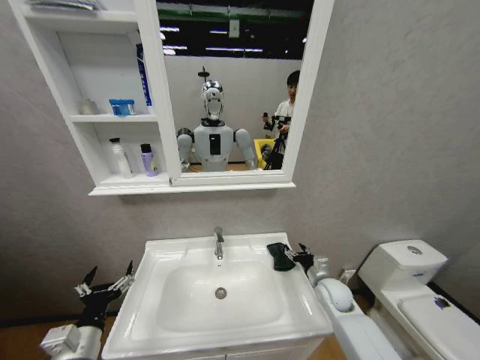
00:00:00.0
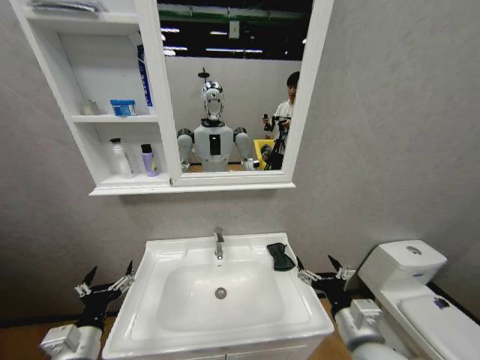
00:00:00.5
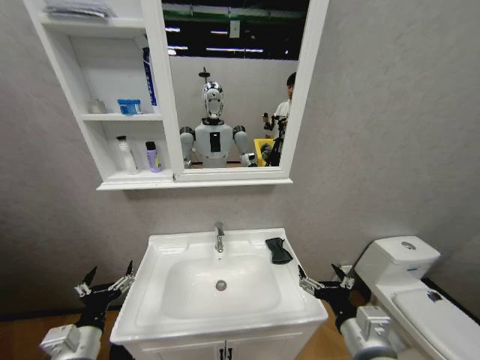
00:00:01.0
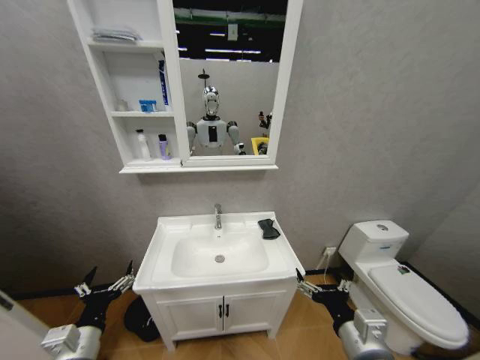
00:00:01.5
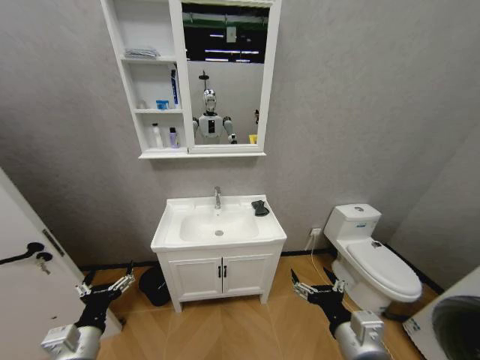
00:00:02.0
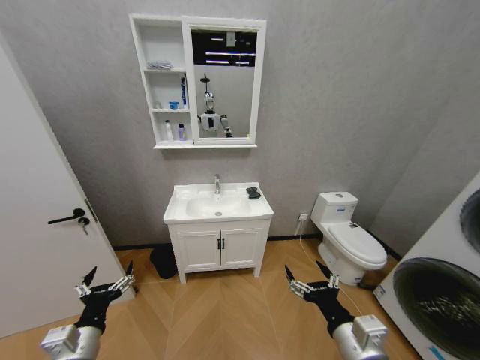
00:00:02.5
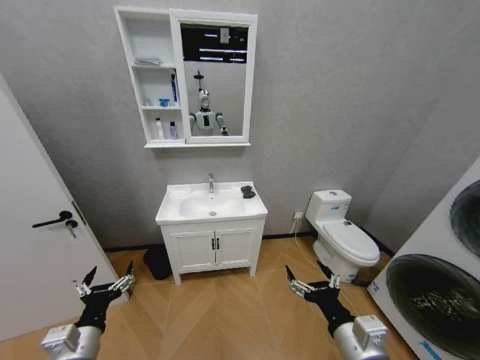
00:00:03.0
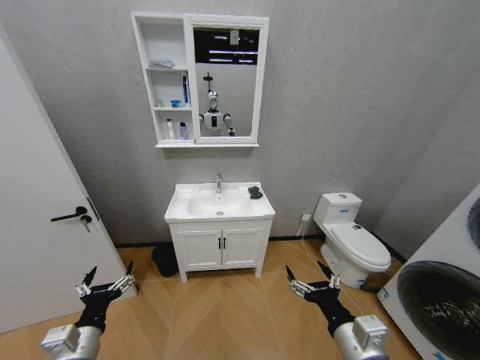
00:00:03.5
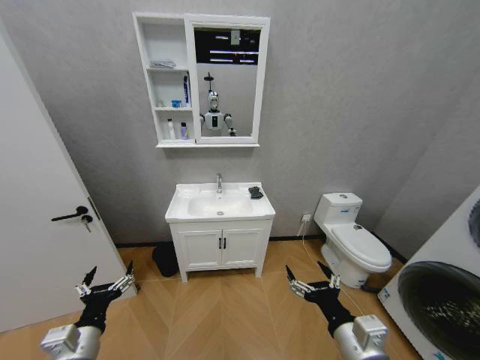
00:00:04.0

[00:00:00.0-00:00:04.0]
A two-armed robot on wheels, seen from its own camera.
Task of the whole recording: Move facial cleanser and shampoo from washbasin to cabinet, then wipe washbasin with towel.
00:00:00.0 to 00:00:02.0: The right gripper is displaced backward and upward by approximately 25 cm.

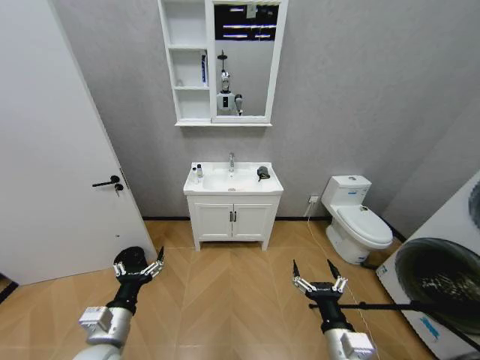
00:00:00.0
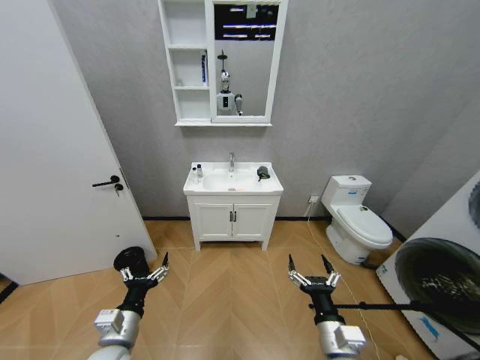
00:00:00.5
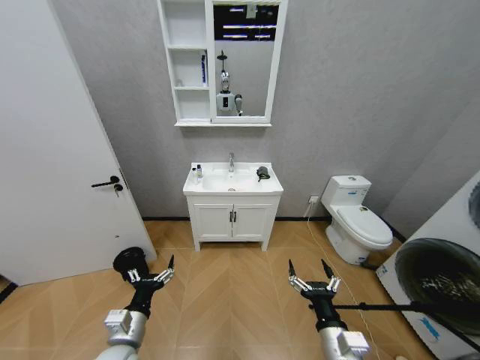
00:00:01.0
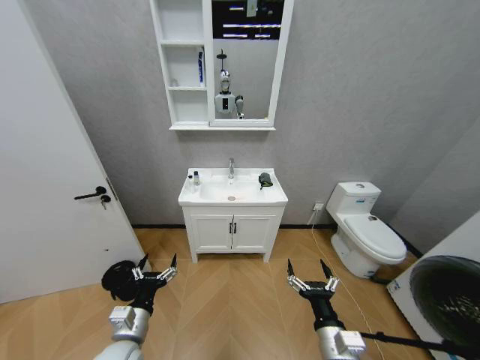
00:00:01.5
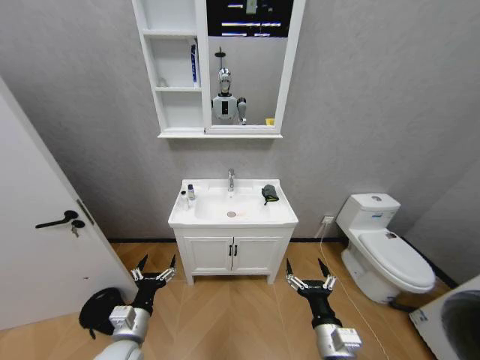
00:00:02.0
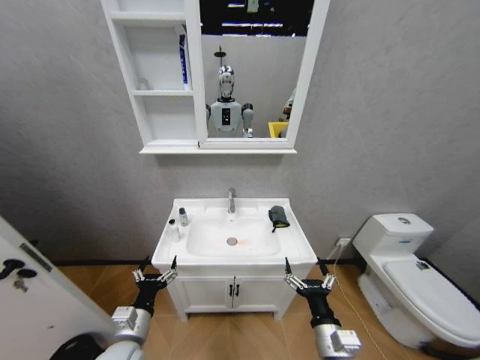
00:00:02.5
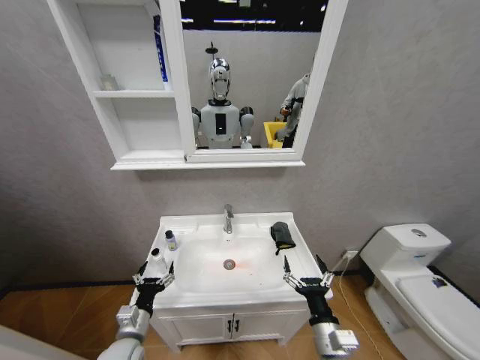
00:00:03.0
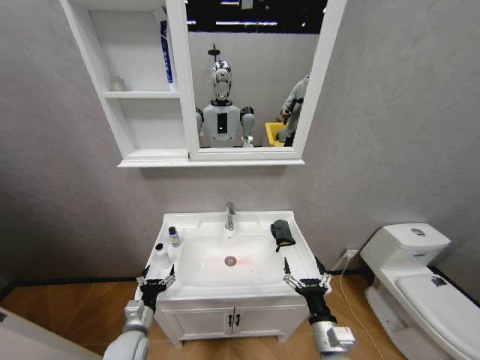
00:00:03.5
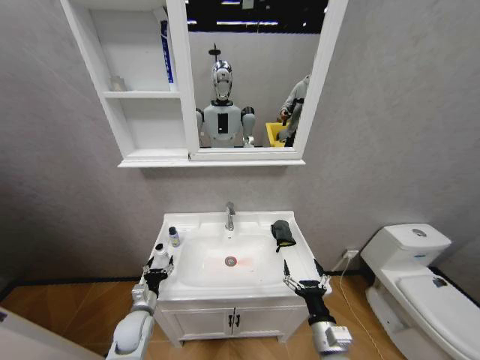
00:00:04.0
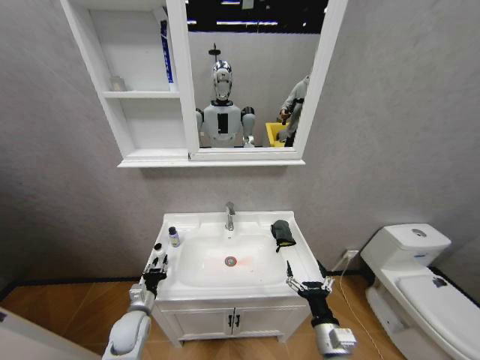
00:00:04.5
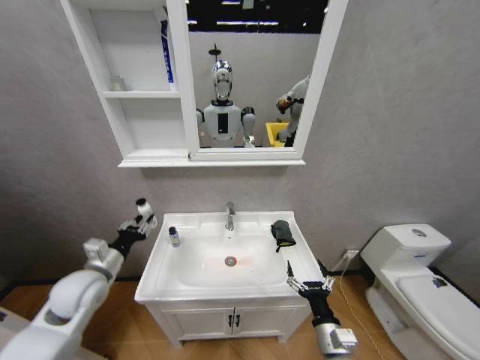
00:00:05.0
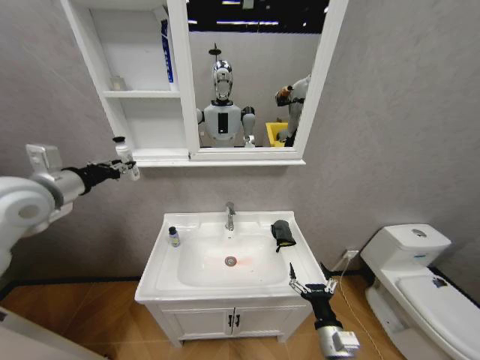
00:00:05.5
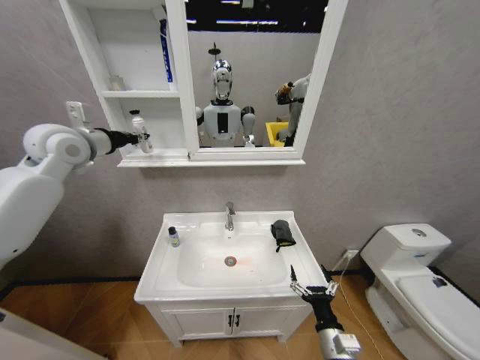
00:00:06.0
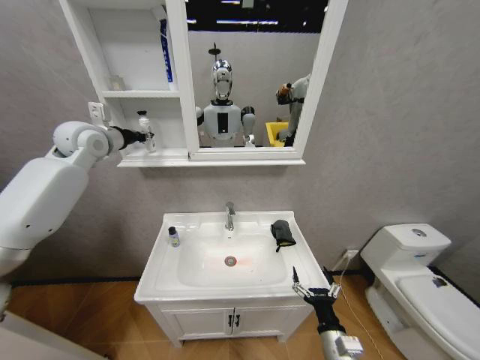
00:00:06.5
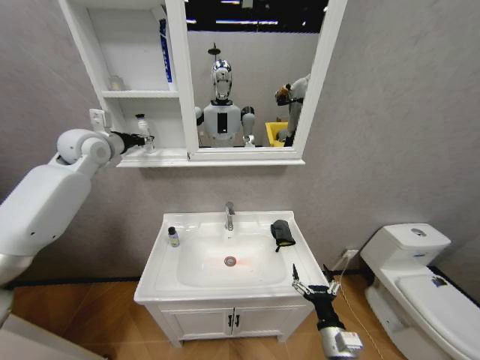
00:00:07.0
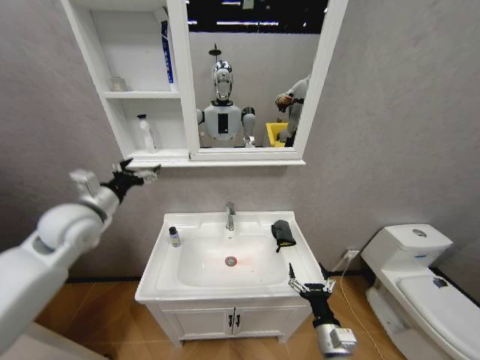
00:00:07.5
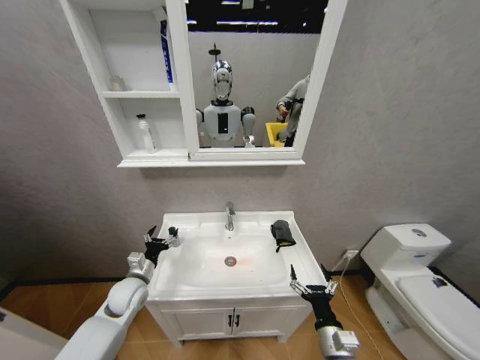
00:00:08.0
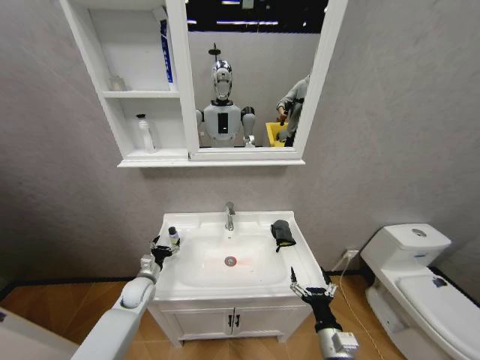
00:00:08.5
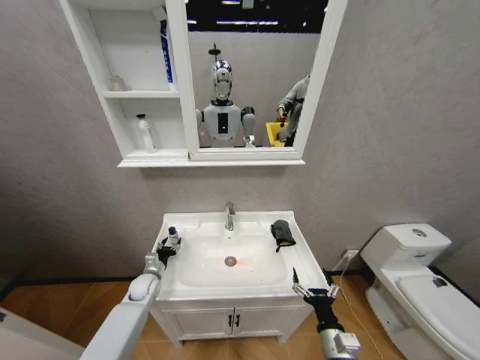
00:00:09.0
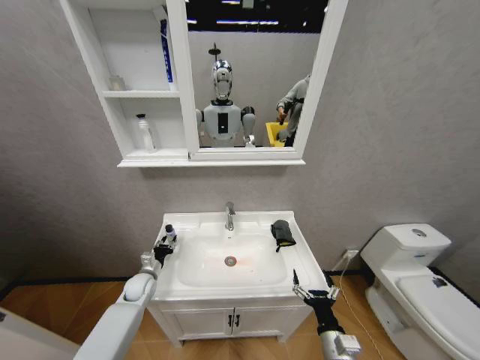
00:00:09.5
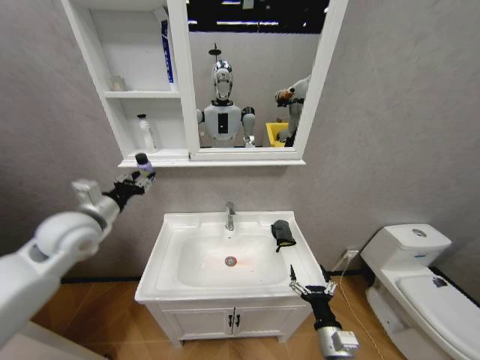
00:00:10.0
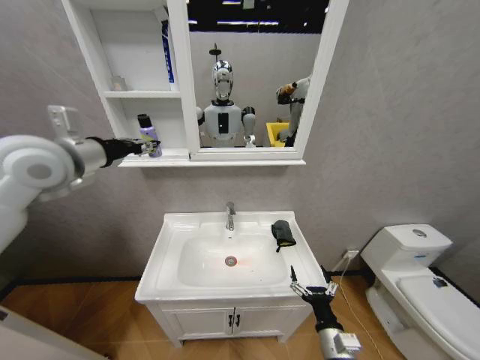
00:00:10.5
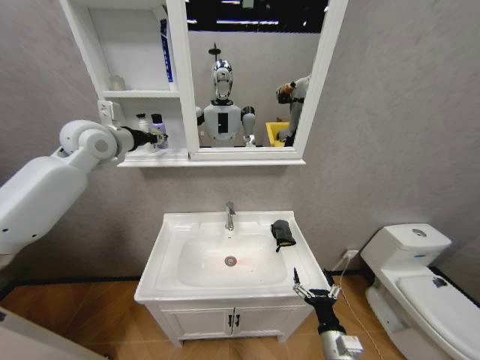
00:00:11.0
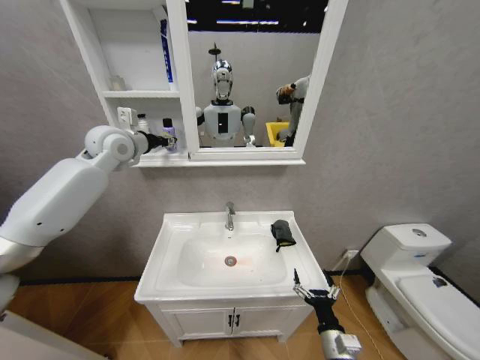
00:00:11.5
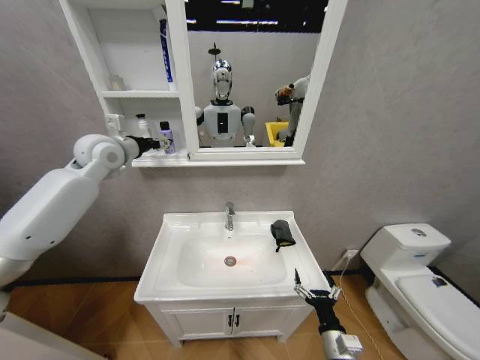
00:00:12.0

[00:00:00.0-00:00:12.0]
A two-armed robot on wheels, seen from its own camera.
Task of the whole recording: Move facial cleanser and shampoo from washbasin to cabinet, then wipe washbasin with towel.
00:00:02.0 to 00:00:04.0: The left gripper is displaced forward and downward by approximately 15 cm.
00:00:04.0 to 00:00:06.0: The left gripper is displaced upward by roughly 50 cm, and closes its fingers.
00:00:06.0 to 00:00:08.0: The left gripper moves downward, roughly 40 cm, and opens.
00:00:08.0 to 00:00:10.0: The left gripper shifts about 25 cm upward, and closes its fingers.
00:00:10.0 to 00:00:12.0: The left gripper heads forward and upward, covering some 20 cm, and opens its fingers.

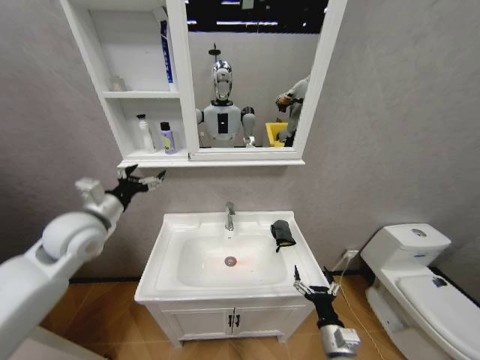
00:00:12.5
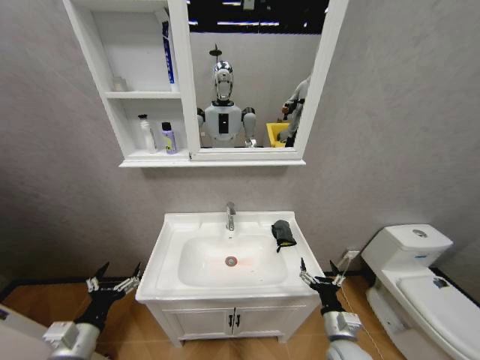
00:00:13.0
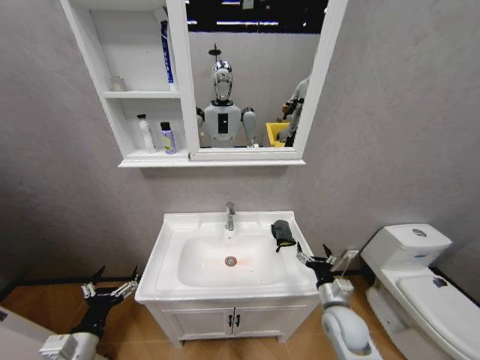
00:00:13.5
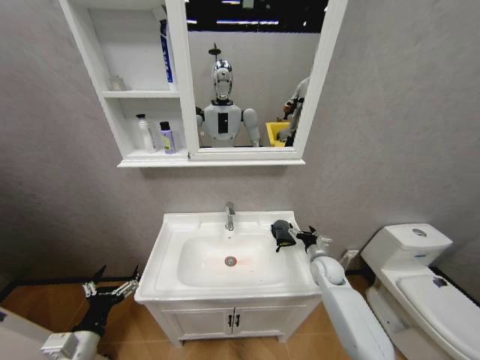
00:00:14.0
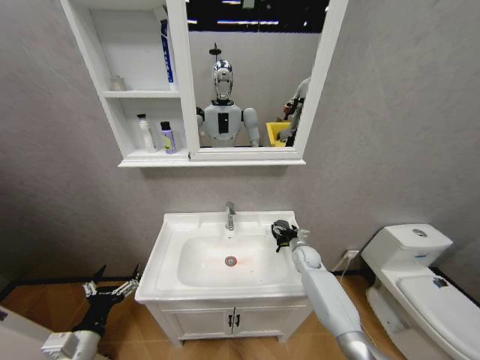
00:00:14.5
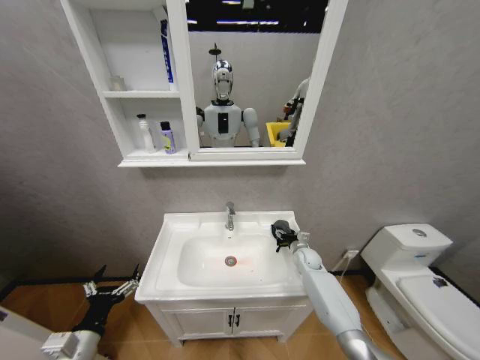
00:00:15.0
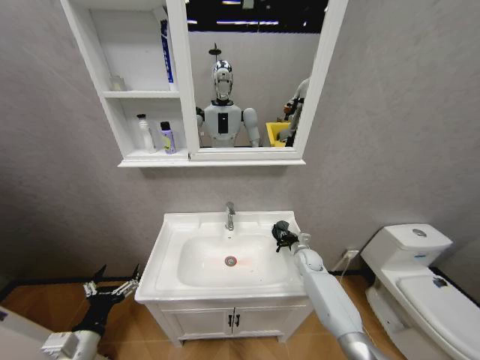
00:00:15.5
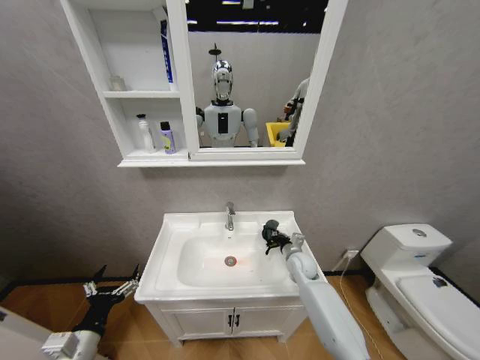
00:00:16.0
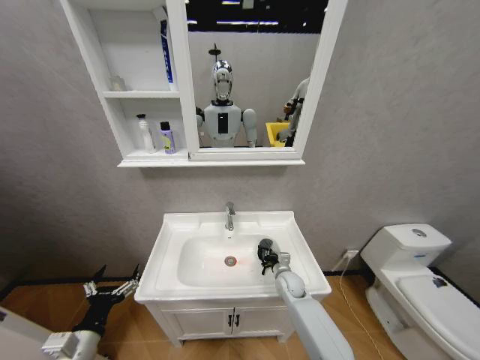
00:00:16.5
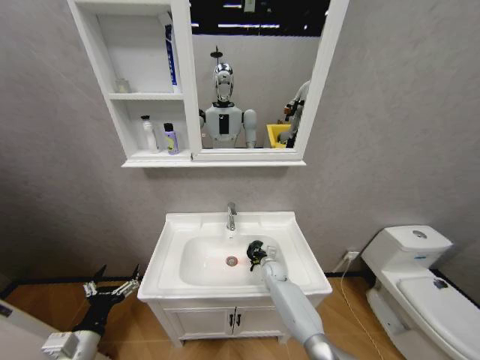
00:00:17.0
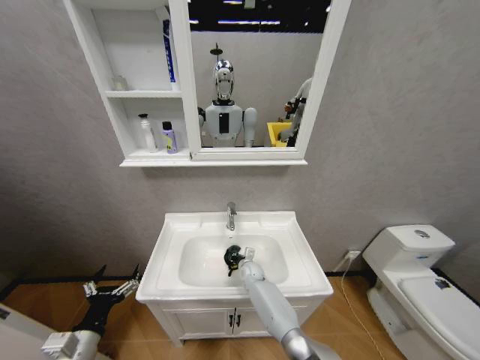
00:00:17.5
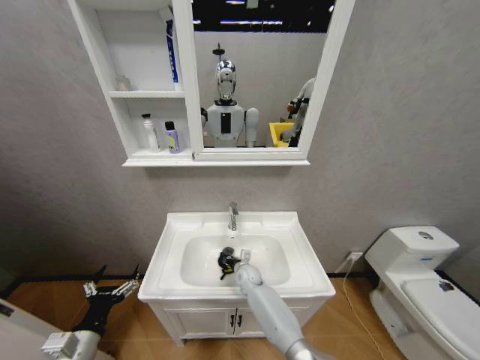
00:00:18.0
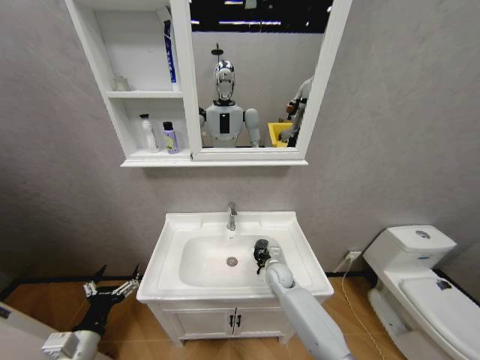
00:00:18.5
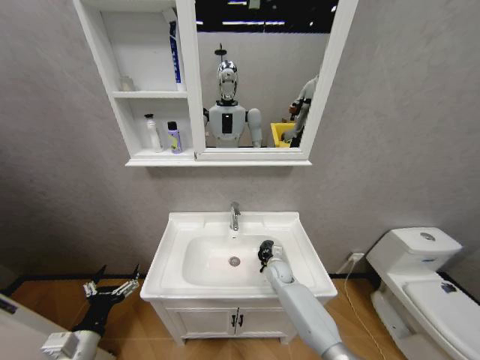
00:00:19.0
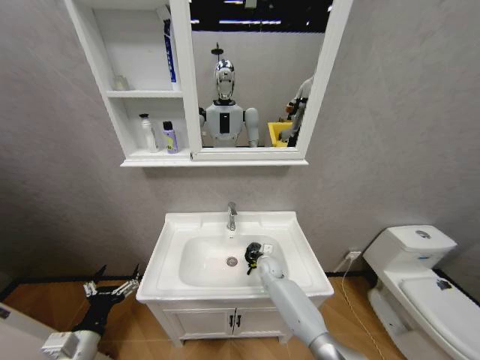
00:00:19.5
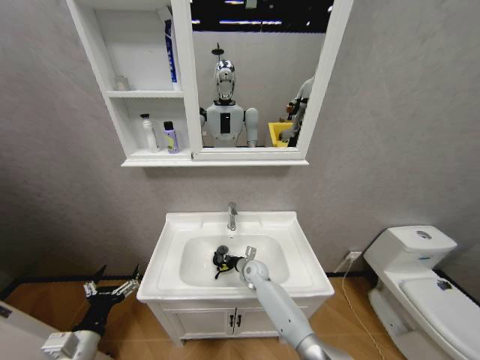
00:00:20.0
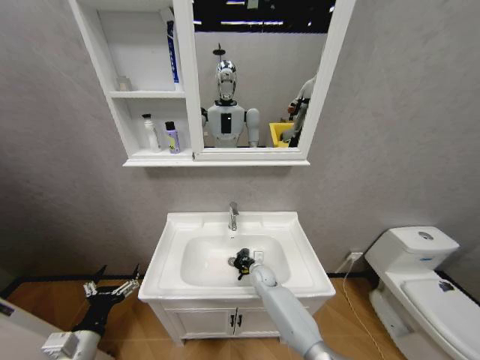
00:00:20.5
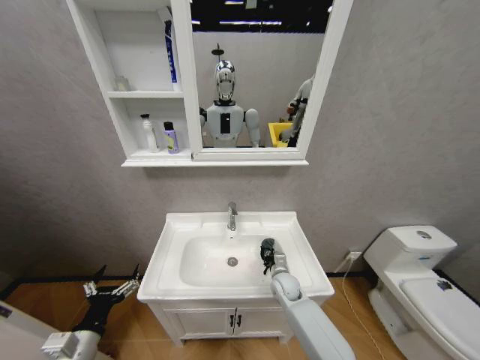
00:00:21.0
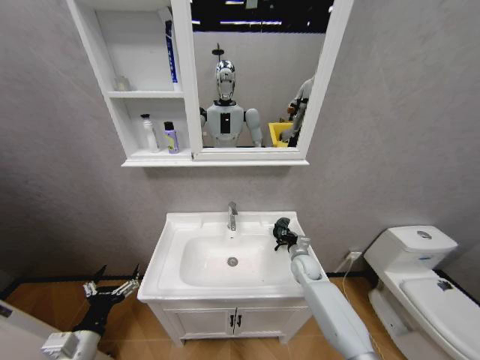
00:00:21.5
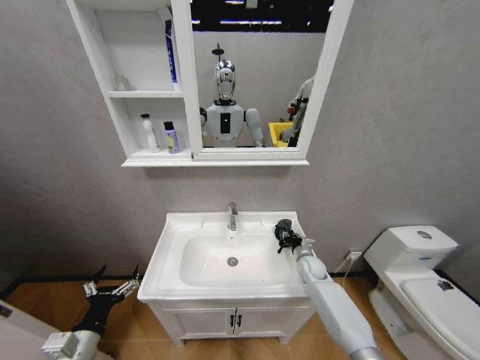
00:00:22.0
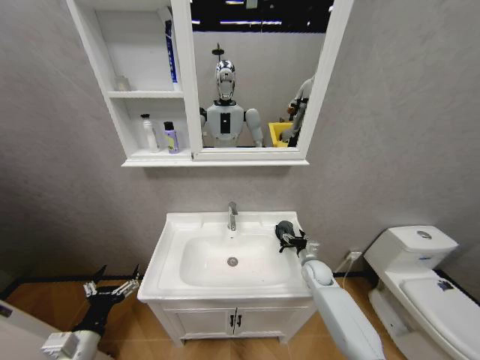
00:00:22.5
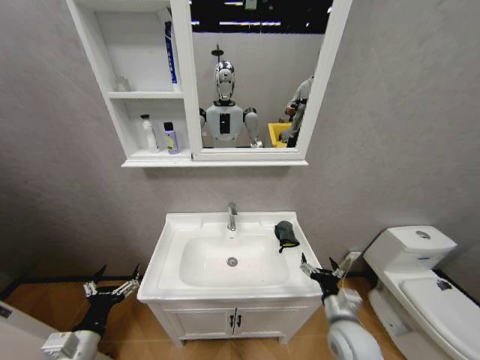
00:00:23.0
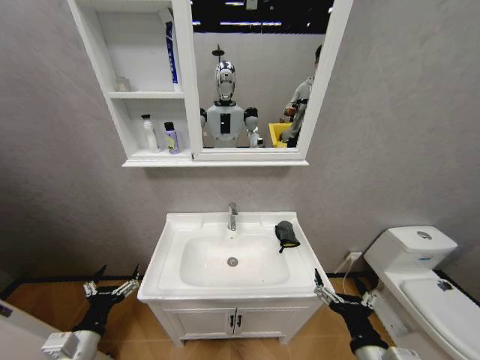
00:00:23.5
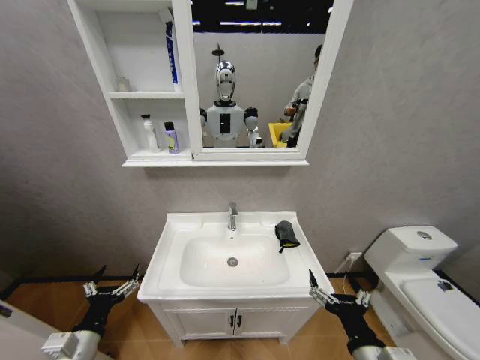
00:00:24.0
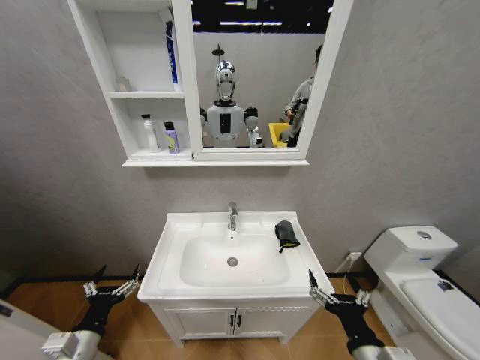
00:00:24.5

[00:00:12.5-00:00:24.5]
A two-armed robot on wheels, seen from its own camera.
Task of the whole recording: Move facial cleanser and shampoo from washbasin to cabinet, then wipe washbasin with towel.
00:00:12.5 to 00:00:14.5: The right gripper goes approximately 35 cm forward; the left gripper heads downward and backward, covering some 30 cm.
00:00:14.5 to 00:00:16.5: The right gripper goes about 15 cm to the left, backward and downward, and closes its fingers.
00:00:16.5 to 00:00:18.5: The right gripper moves approximately 15 cm to the left and comes back.
00:00:18.5 to 00:00:20.5: The right gripper moves approximately 5 cm.
00:00:20.5 to 00:00:22.5: The right gripper heads to the right, covering some 20 cm, and opens its fingers.
00:00:22.5 to 00:00:24.5: The right gripper goes approximately 35 cm backward.
